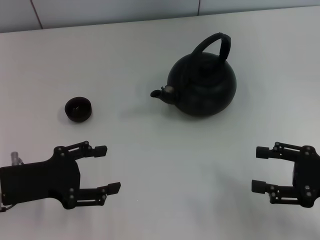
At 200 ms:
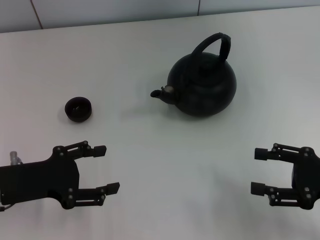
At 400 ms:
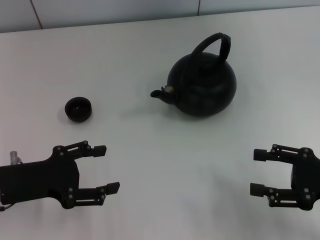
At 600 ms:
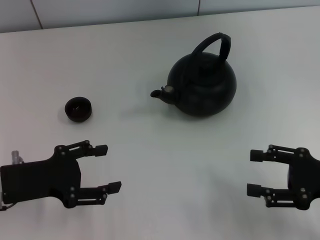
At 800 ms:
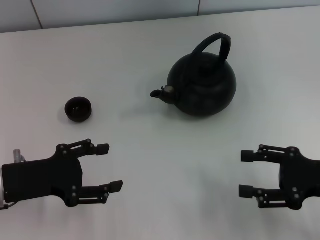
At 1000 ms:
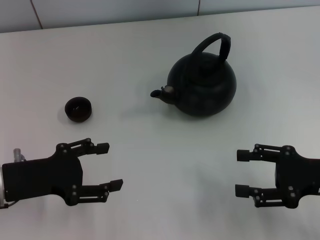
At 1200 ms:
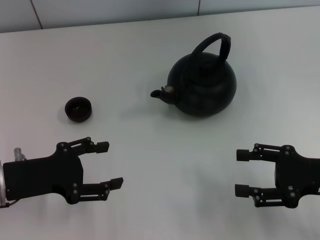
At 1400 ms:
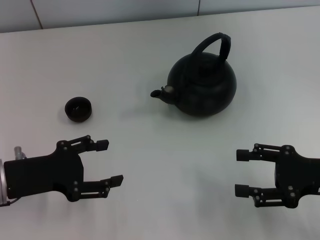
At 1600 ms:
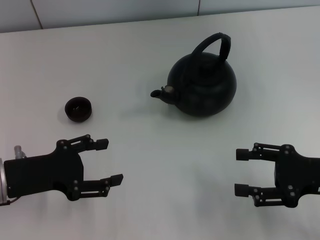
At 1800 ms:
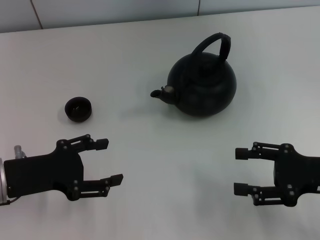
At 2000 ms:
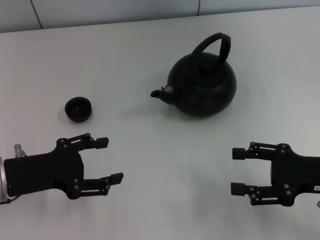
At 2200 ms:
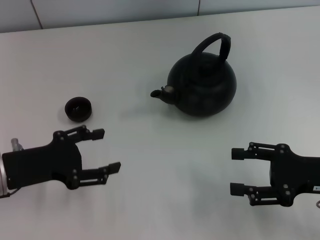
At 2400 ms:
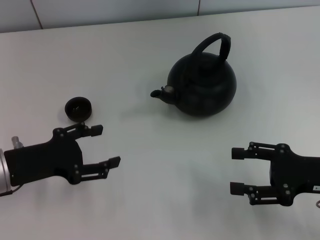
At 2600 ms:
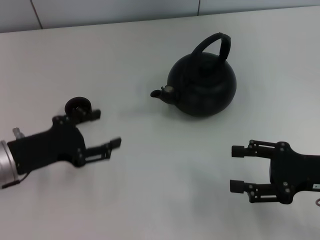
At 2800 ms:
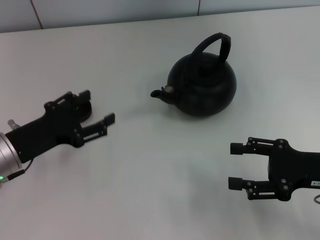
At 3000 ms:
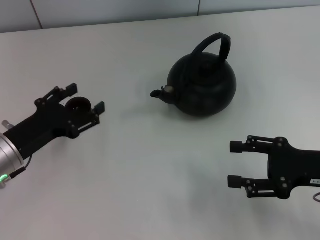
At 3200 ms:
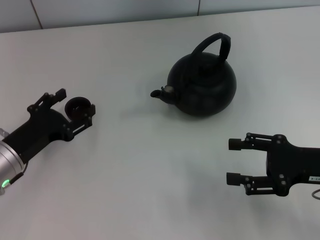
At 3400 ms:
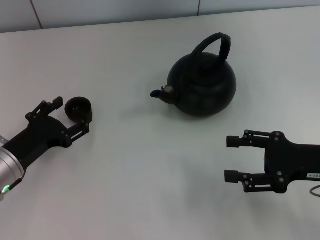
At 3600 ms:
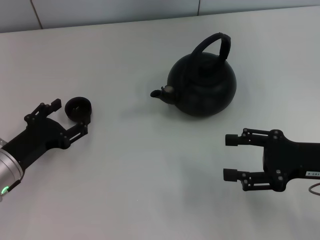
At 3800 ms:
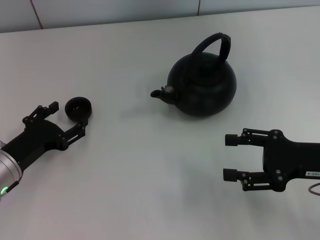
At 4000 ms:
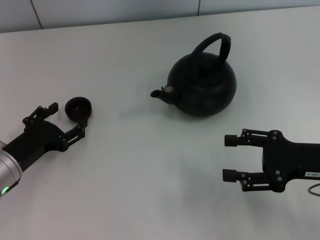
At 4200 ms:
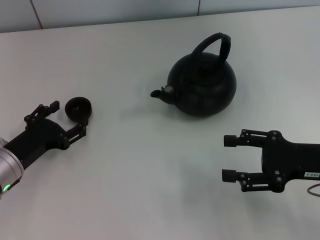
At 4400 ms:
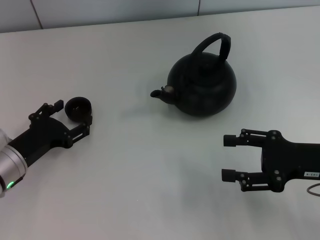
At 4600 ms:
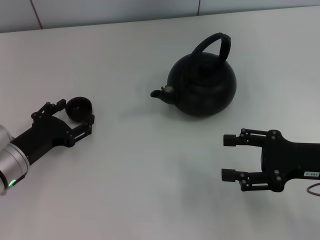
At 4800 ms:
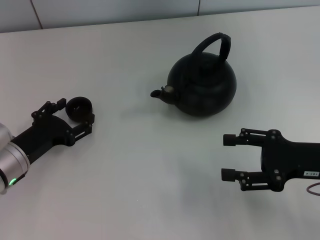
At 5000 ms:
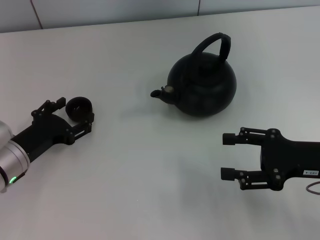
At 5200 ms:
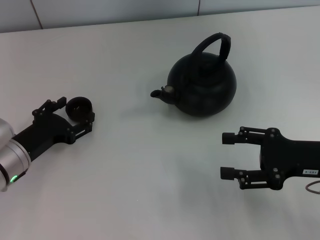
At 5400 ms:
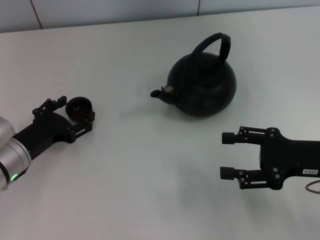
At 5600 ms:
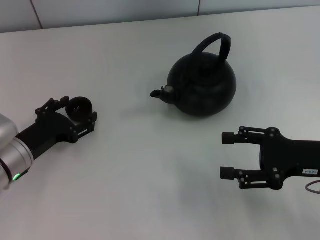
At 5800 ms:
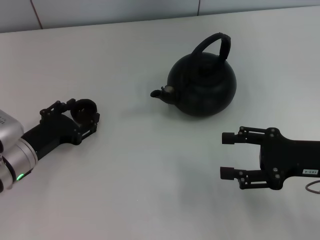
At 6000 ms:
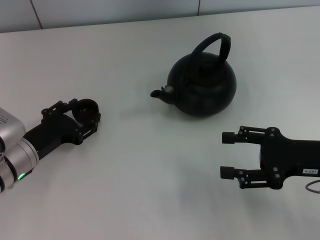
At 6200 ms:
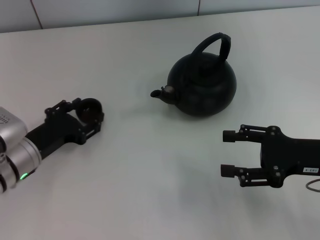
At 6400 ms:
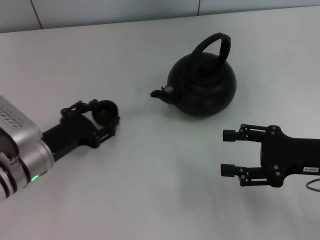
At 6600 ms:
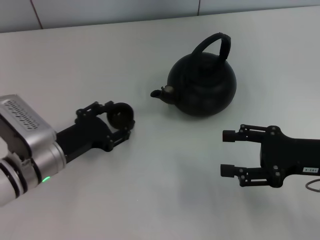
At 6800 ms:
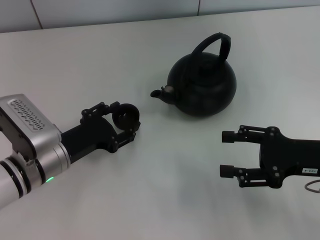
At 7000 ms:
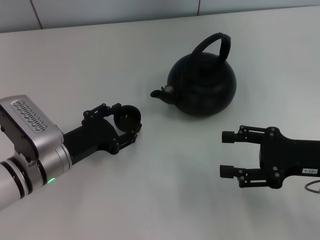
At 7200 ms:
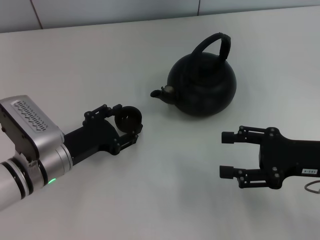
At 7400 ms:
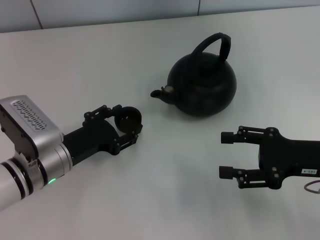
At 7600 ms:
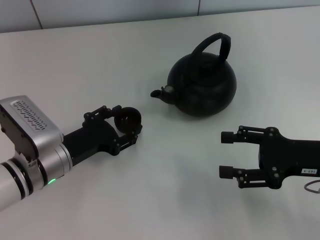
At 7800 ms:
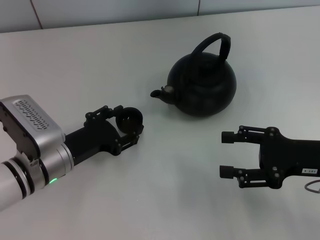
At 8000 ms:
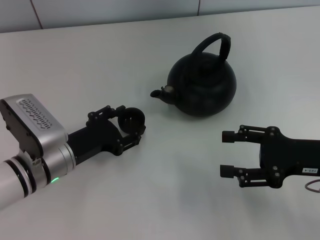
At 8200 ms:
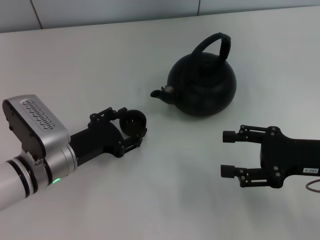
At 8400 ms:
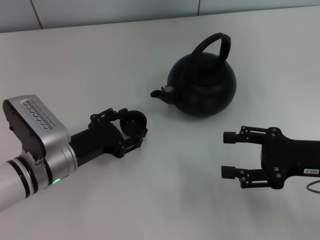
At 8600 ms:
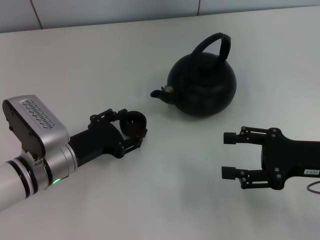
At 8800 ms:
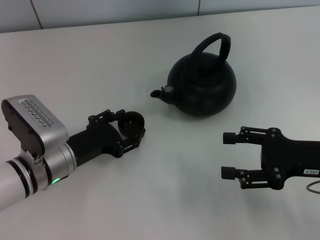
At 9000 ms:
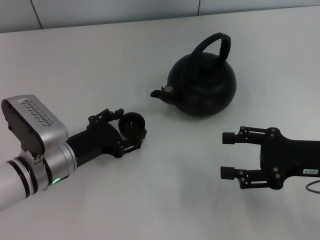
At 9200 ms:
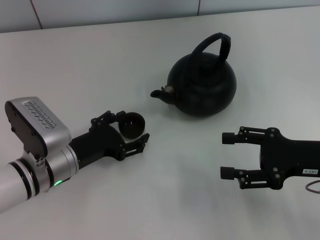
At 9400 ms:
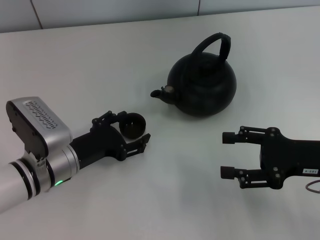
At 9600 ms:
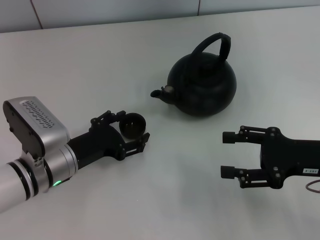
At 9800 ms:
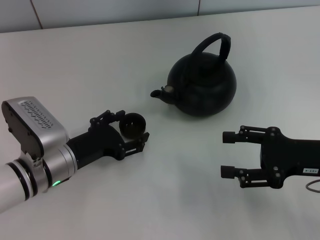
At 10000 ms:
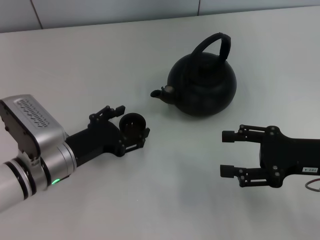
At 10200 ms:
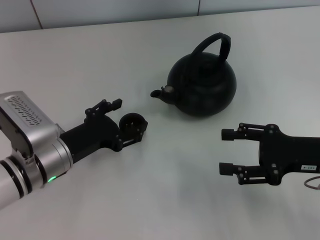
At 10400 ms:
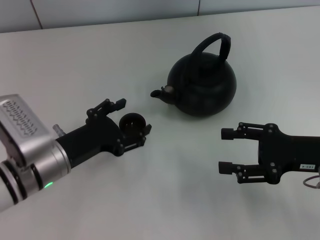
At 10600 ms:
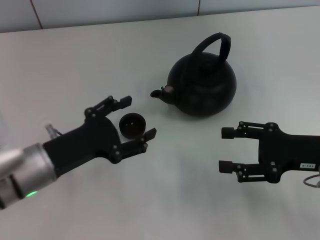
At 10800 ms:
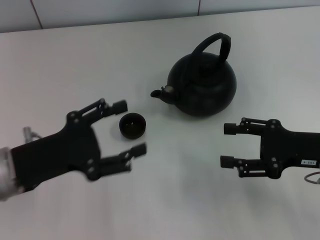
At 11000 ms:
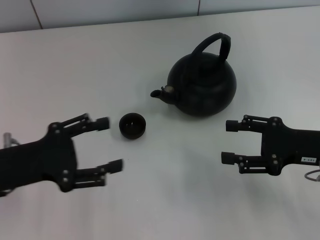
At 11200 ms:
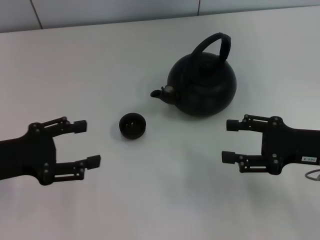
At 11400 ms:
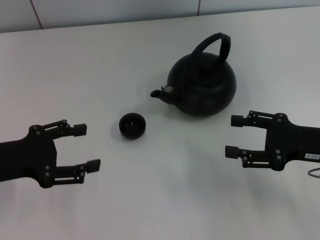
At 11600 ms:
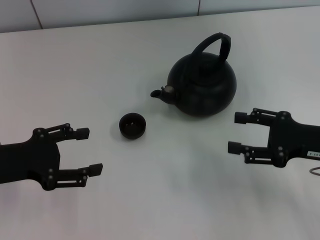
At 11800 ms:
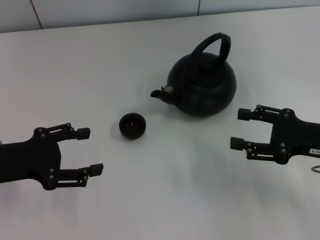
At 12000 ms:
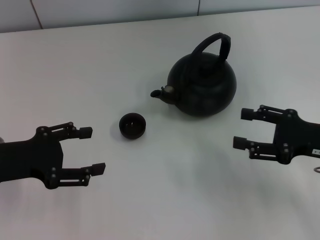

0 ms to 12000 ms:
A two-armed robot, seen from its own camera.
Task of the whole recording: Grasp the handle of the teapot with one hand and pour tea into the teacup.
Step, 0 ms to 6200 ms: Pick up the teacup with the left gripper.
Step, 6400 ms to 10600 ms: Place the teacup in the center of view with the left gripper.
0 ms to 1600 ms: The grippers stay close to where they were, moving slightly.
3000 ms to 6000 ms: The grippers make only small movements.
6000 ms to 7600 ms: The left gripper closes its fingers.
7600 ms to 9000 ms: The left gripper opens up.
9000 ms to 10400 ms: The left gripper opens its fingers.
10400 ms to 12000 ms: The left gripper travels to the left and upward by approximately 10 cm.

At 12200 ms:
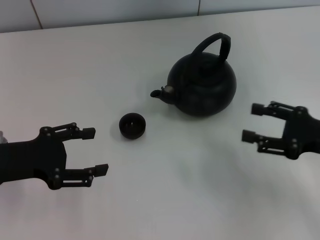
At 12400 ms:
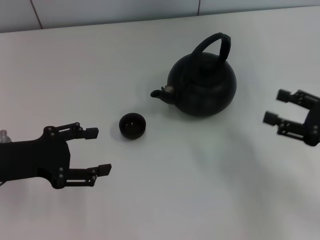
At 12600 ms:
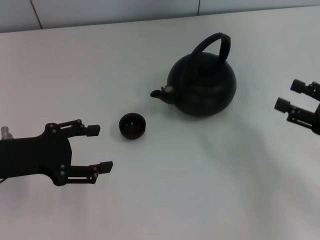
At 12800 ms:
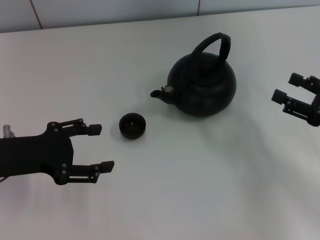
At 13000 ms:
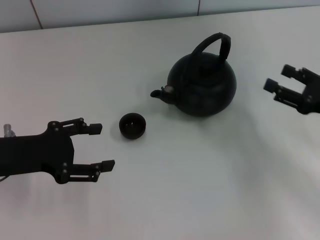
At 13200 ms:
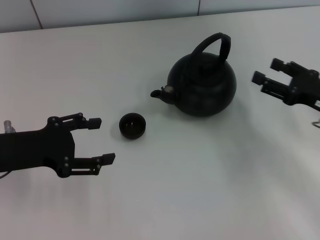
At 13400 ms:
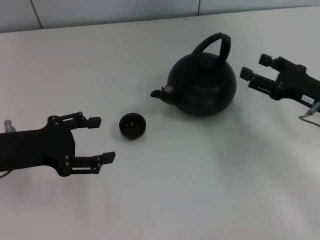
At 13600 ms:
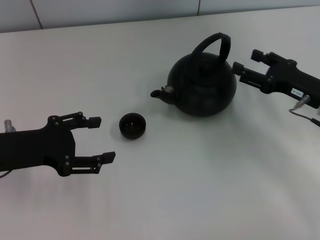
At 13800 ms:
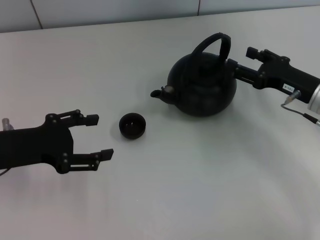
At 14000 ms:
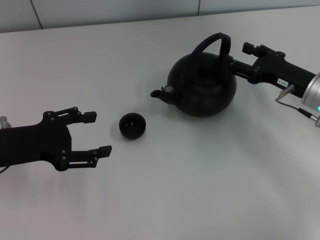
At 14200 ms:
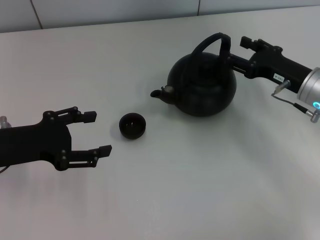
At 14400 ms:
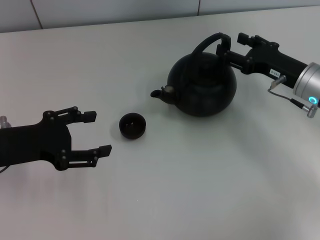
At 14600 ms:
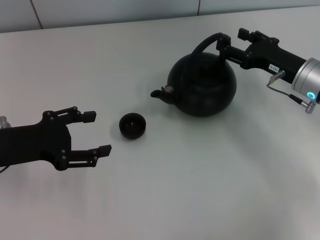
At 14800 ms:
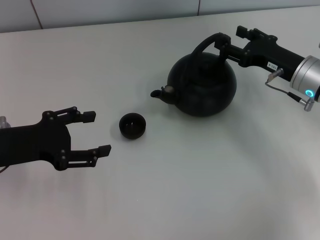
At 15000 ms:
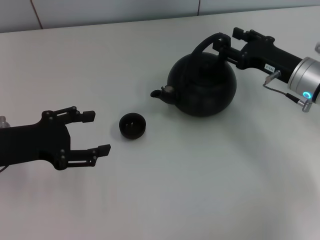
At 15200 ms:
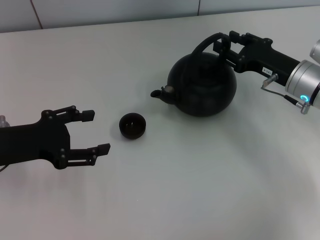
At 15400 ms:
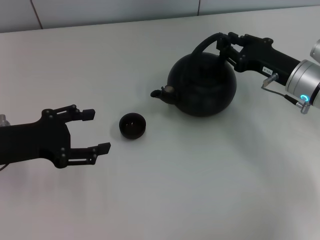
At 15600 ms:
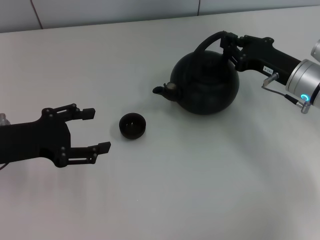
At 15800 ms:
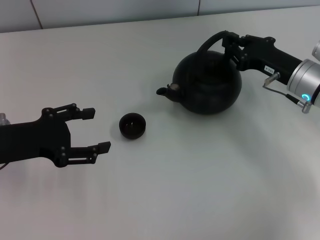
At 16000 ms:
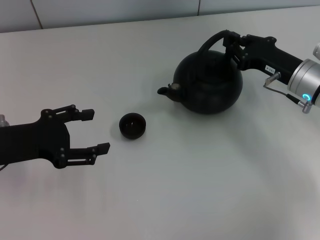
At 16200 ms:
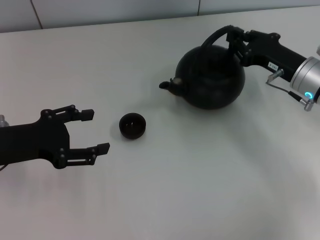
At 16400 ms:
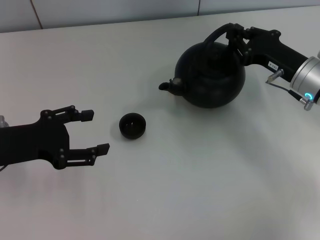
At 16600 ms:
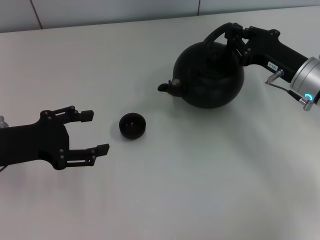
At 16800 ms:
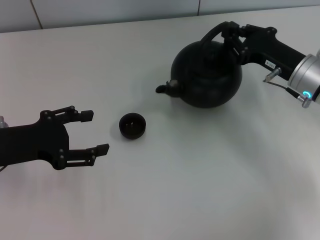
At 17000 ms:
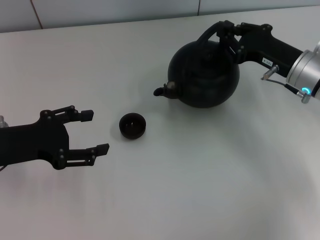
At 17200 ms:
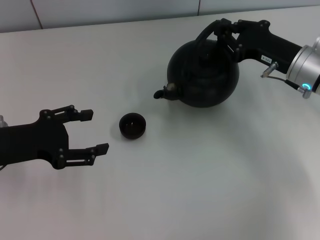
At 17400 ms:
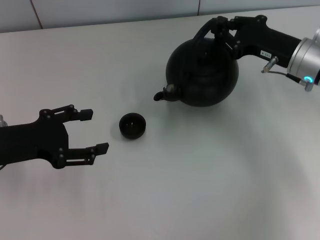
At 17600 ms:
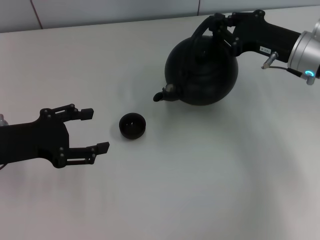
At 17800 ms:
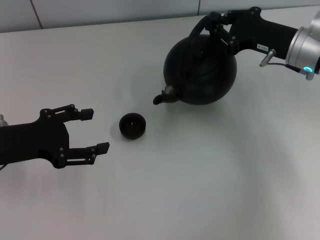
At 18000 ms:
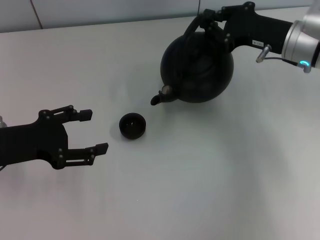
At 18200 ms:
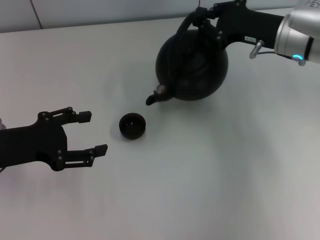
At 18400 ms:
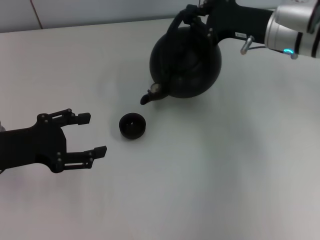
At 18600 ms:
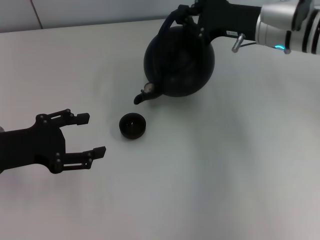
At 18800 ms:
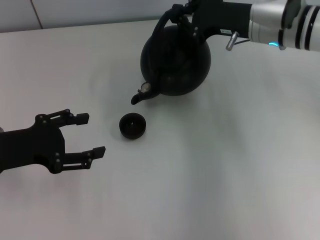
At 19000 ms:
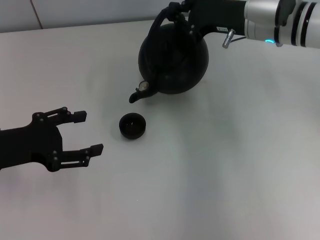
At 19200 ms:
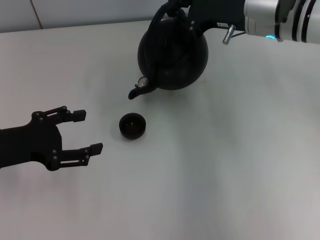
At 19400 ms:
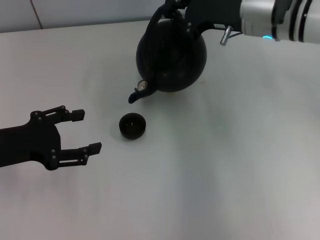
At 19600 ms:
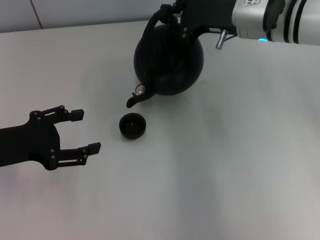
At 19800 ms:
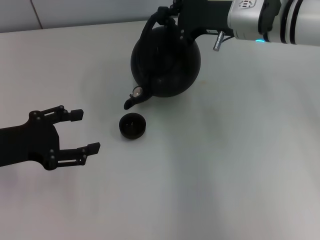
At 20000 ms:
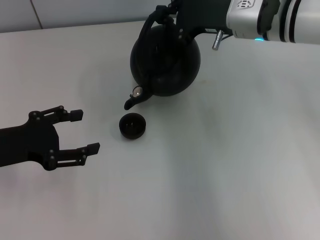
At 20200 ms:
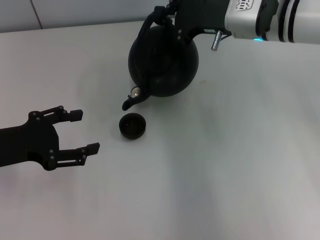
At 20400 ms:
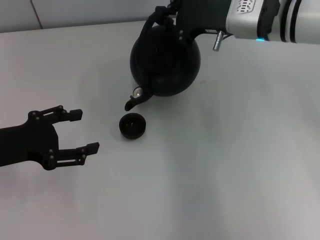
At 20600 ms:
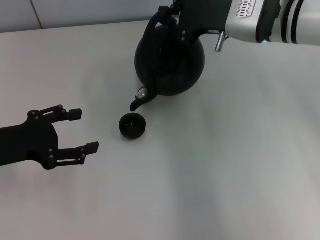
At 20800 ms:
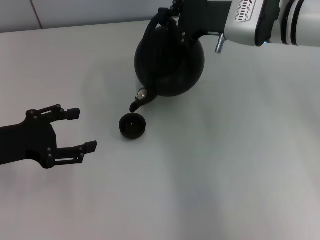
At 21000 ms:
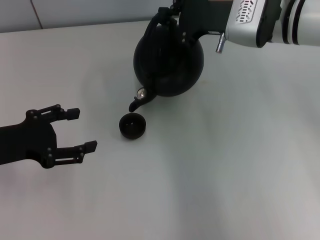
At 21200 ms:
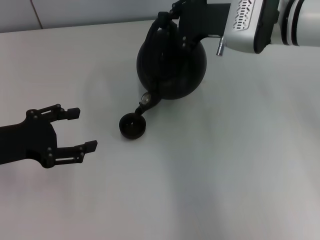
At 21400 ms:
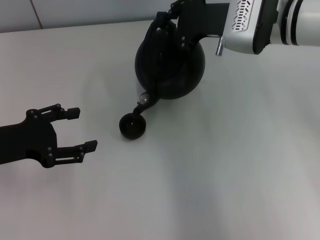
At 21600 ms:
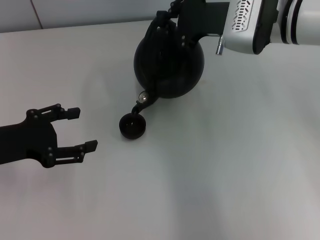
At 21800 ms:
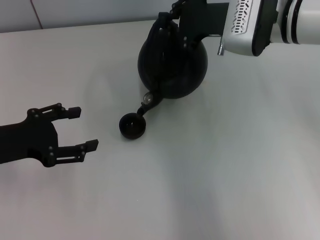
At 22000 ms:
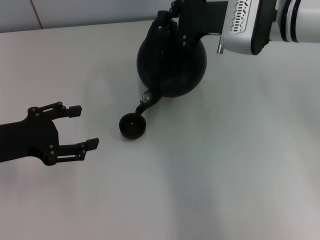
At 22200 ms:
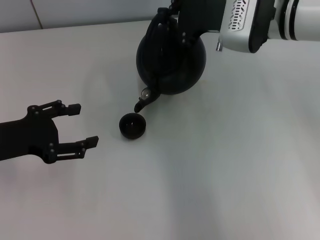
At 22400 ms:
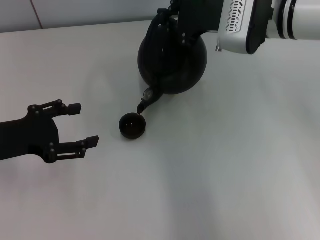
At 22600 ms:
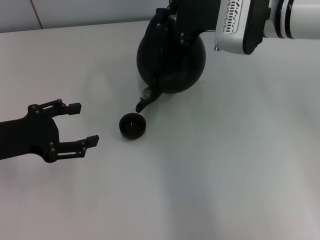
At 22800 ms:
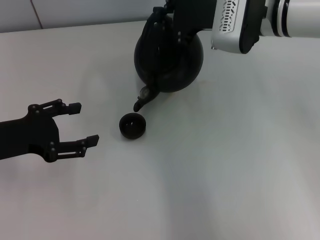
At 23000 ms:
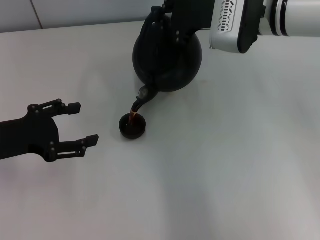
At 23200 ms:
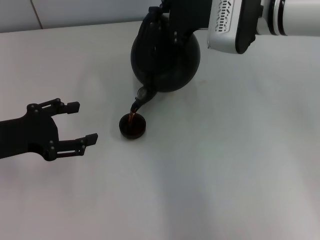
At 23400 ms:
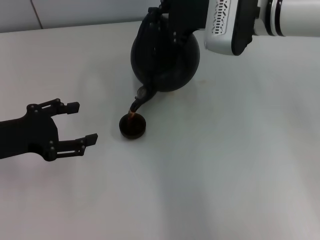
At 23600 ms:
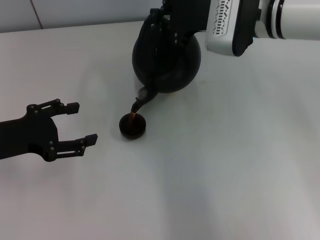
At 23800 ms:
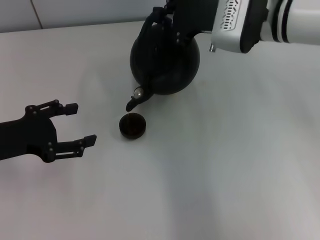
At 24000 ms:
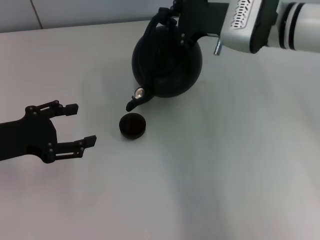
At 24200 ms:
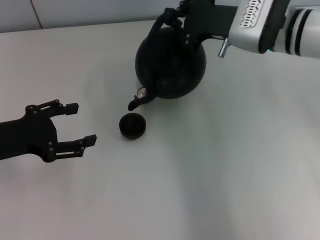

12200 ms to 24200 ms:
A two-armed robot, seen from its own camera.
Task of the whole recording: Grasp the handle of the teapot with one hand and pour tea into the teacup.
Step, 12200 ms to 16800 ms: Pick up the teapot with the right gripper.
12200 ms to 13800 ms: The right gripper shifts some 10 cm forward.
13800 ms to 15200 ms: The grippers make only small movements.
15200 ms to 16600 ms: The right gripper closes.
16600 ms to 18200 ms: The right gripper travels upward by approximately 5 cm.
18200 ms to 19800 ms: The right gripper goes about 5 cm to the left.
19800 ms to 22600 ms: The grippers stay close to where they were, moving slightly.
22600 ms to 24200 ms: The grippers stay close to where they were, moving slightly.
